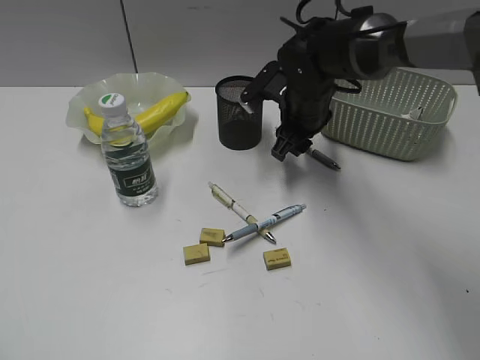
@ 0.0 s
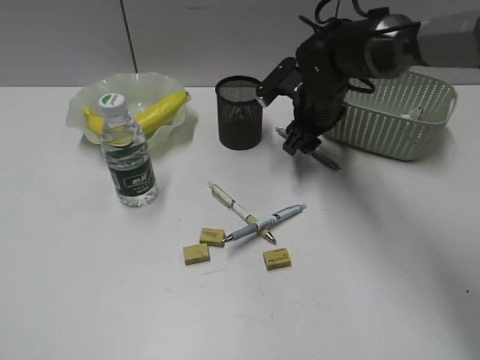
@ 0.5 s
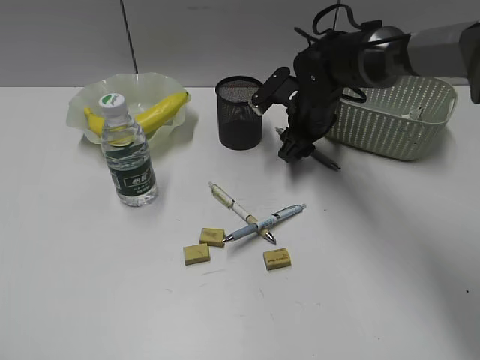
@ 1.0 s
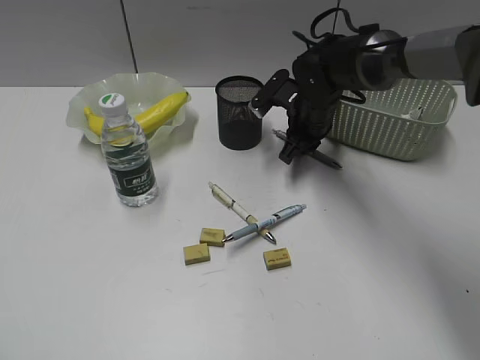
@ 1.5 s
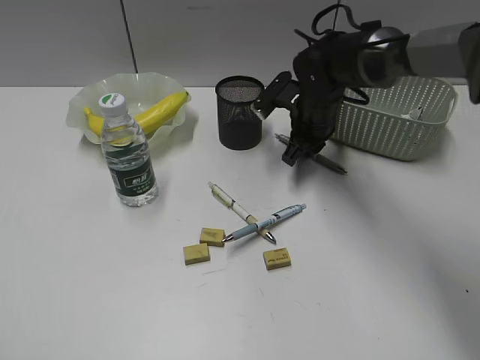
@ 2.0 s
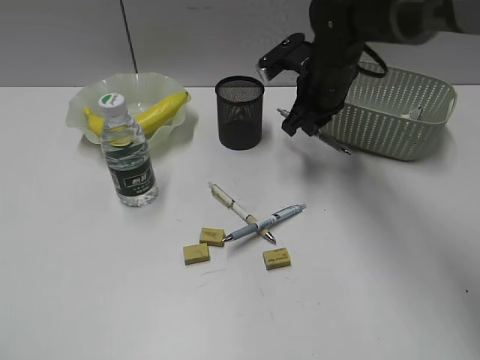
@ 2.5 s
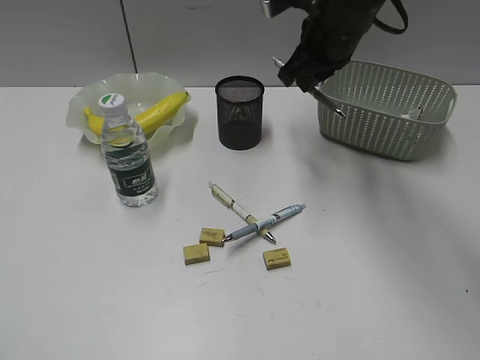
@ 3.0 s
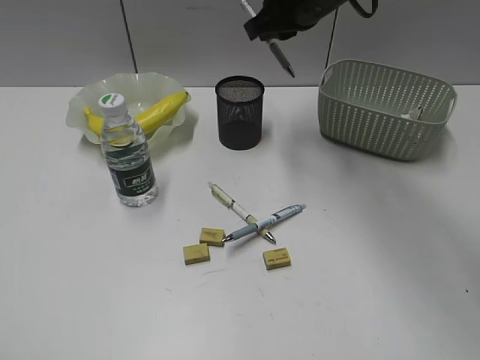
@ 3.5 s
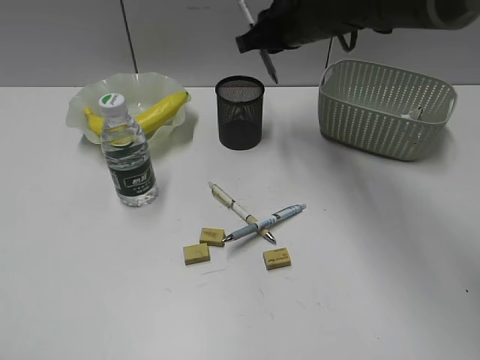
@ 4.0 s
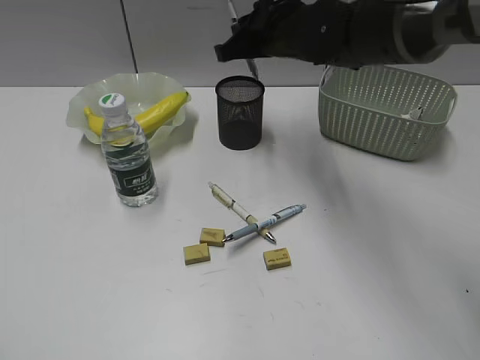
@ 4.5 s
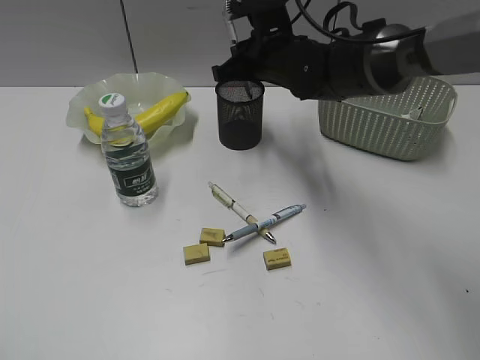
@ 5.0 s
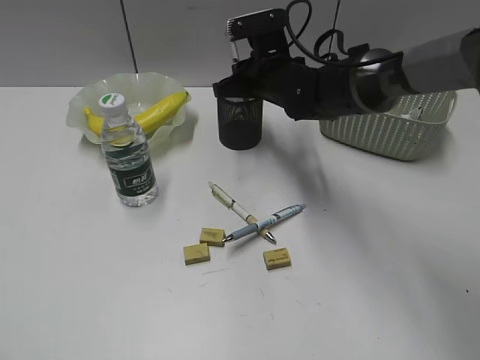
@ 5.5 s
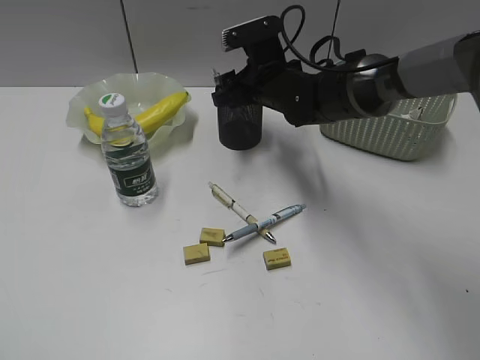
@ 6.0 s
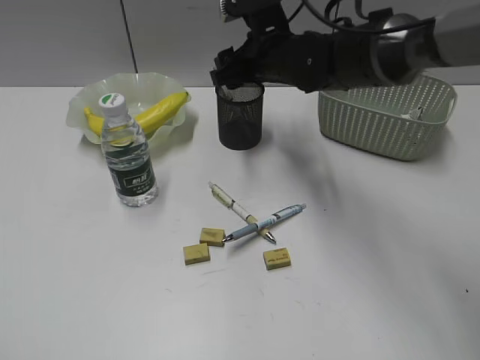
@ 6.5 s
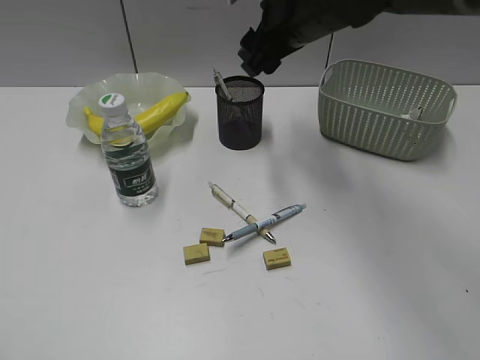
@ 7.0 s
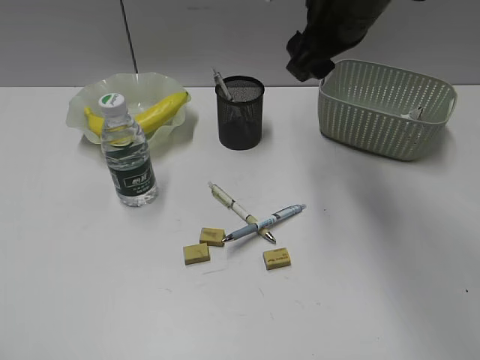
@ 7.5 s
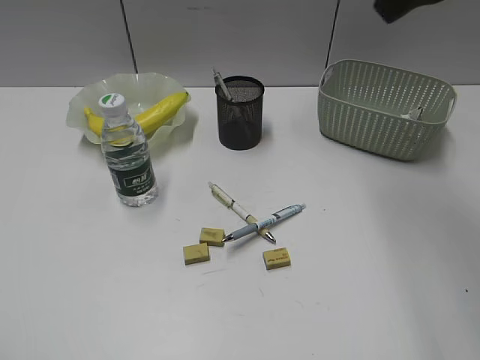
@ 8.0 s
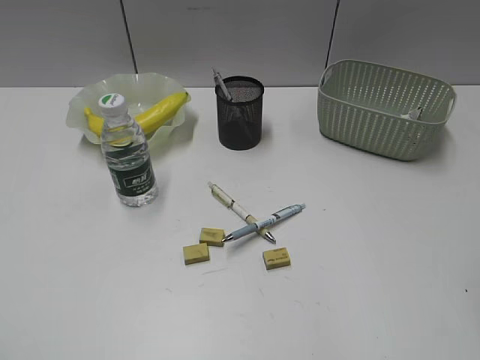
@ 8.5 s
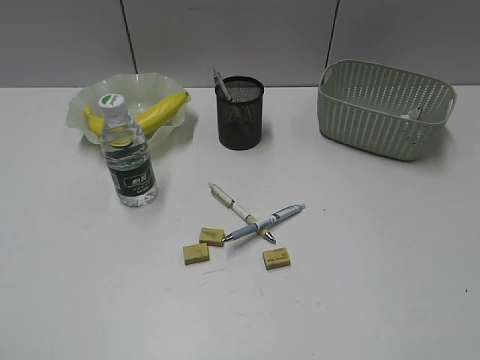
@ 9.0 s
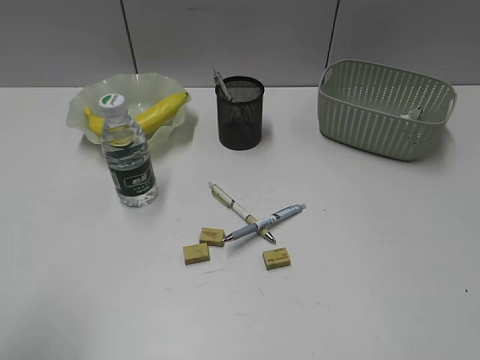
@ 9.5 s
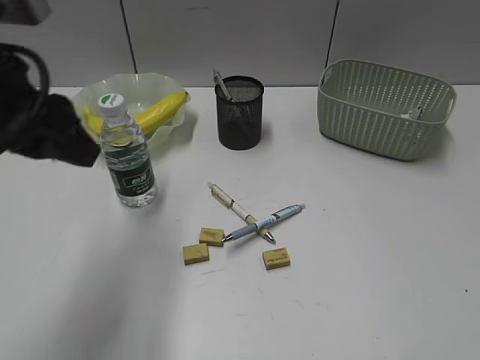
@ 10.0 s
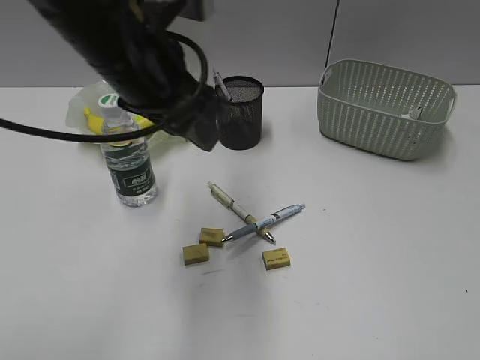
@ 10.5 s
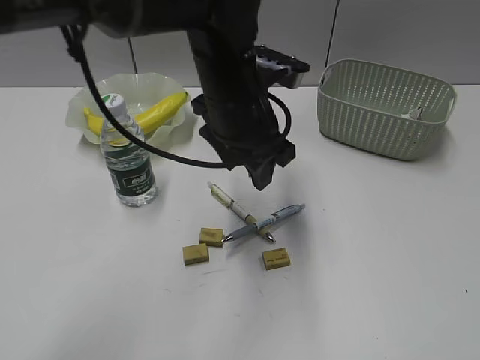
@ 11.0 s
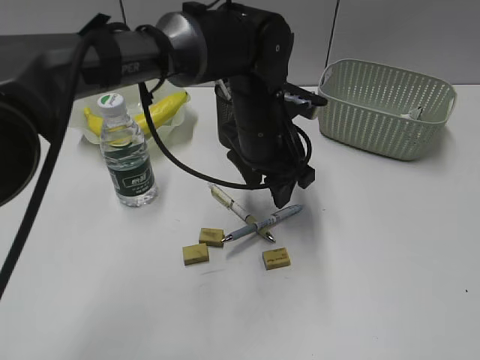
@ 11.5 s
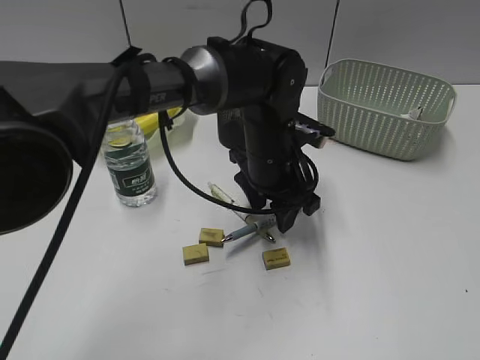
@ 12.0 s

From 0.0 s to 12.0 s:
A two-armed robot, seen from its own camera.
Step, from 2.0 s to 6.0 s: Place the gray pen in pen holder with right gripper.
From 0.0 s to 2.0 s: The right gripper closes its fingers.
From 2.0 s to 4.0 s: The right gripper moves upward, roughly 15 cm.
From 4.0 s to 6.0 s: The right gripper shifts approximately 10 cm downward, and opens.
From 6.0 s to 8.0 s: The right gripper is displaced upward and backward by about 30 cm.
From 8.0 s to 10.0 s: The right gripper heads backward, to the right and downward, covering about 35 cm. Meanwhile the left gripper goes about 25 cm forward and to the right.
From 10.0 s to 12.0 s: The left gripper travels to the right, downward and forward by roughly 30 cm.

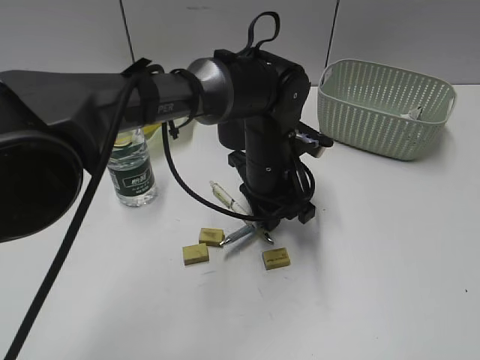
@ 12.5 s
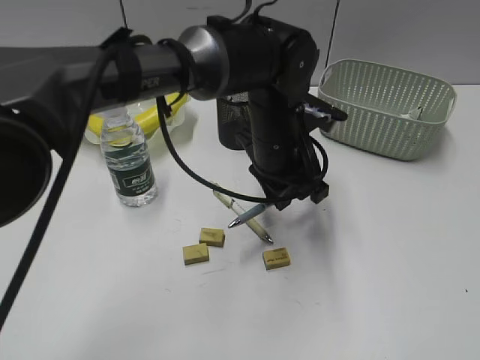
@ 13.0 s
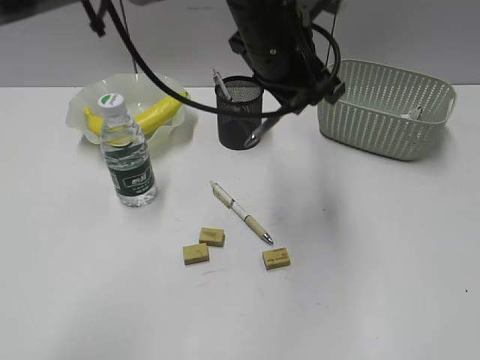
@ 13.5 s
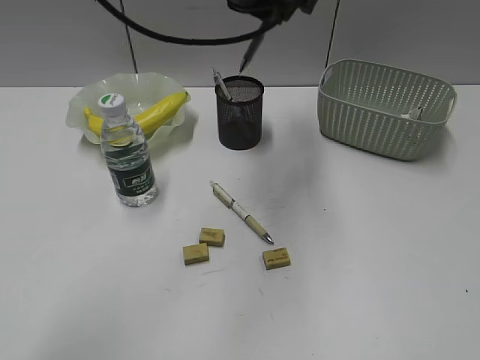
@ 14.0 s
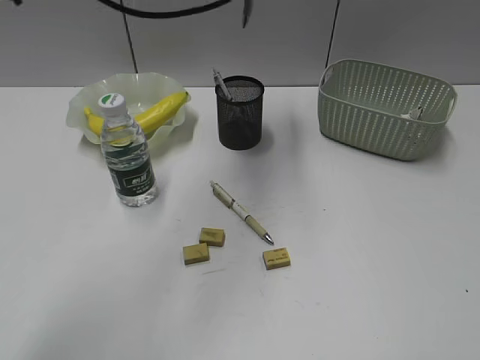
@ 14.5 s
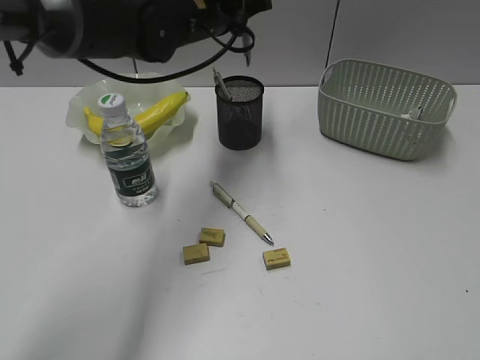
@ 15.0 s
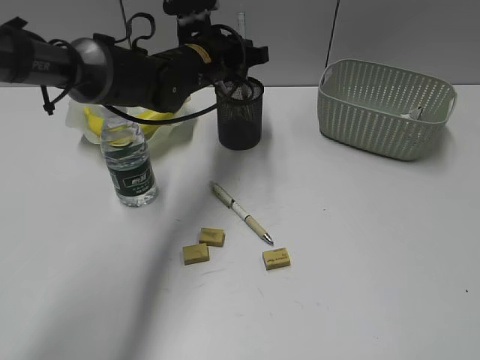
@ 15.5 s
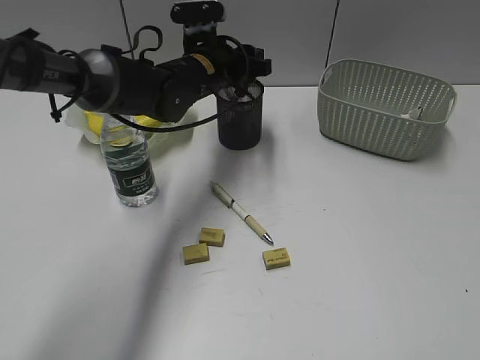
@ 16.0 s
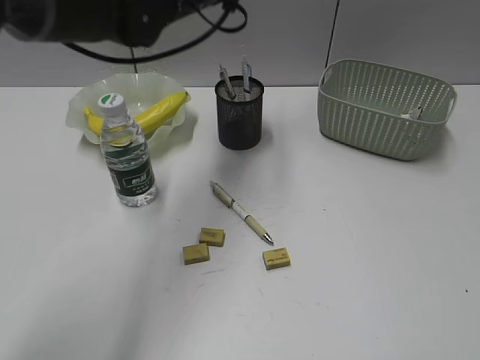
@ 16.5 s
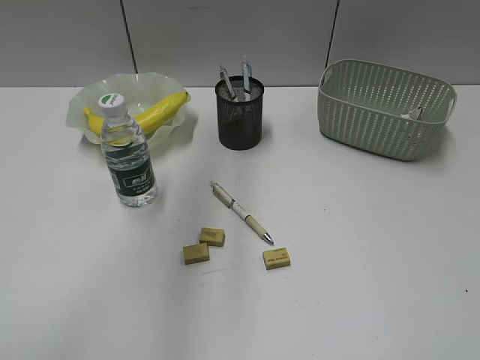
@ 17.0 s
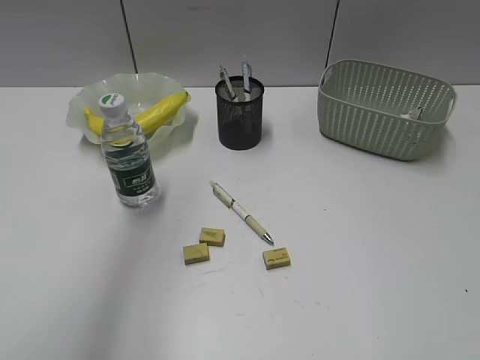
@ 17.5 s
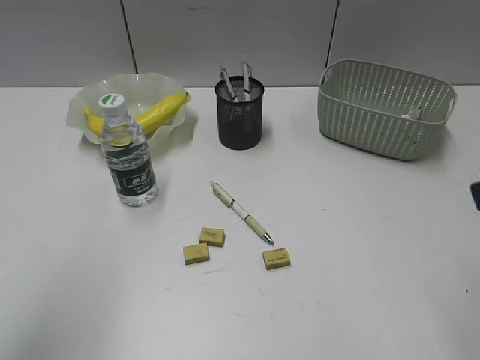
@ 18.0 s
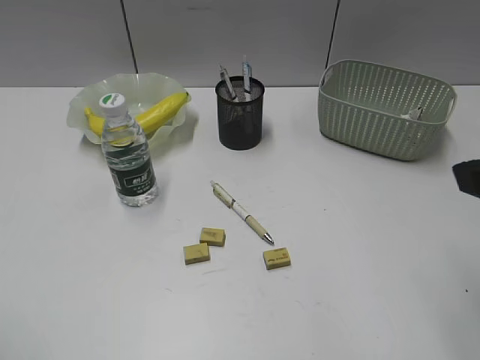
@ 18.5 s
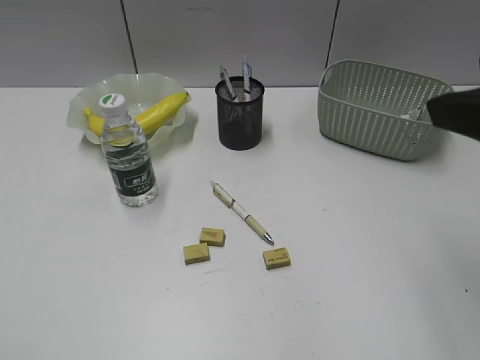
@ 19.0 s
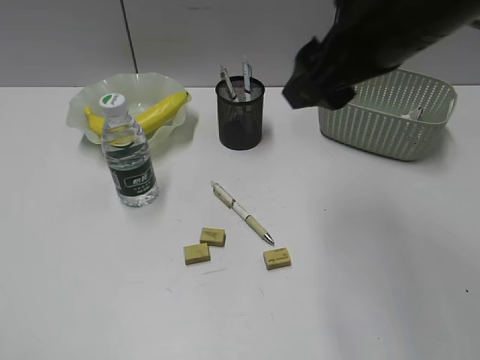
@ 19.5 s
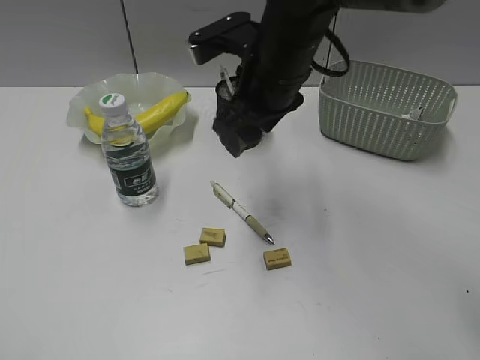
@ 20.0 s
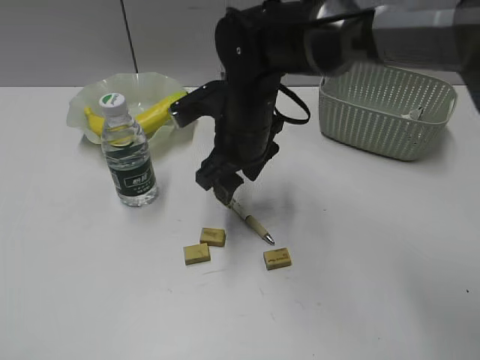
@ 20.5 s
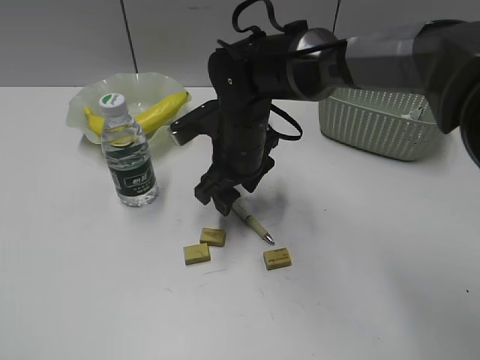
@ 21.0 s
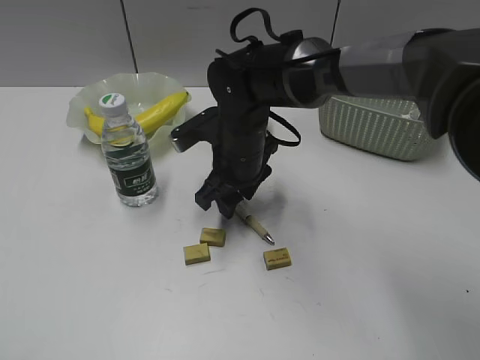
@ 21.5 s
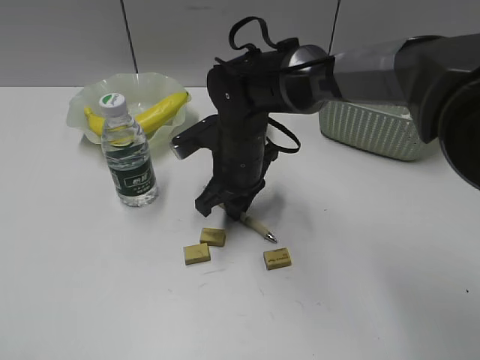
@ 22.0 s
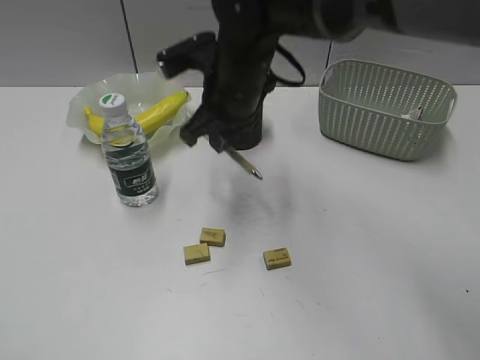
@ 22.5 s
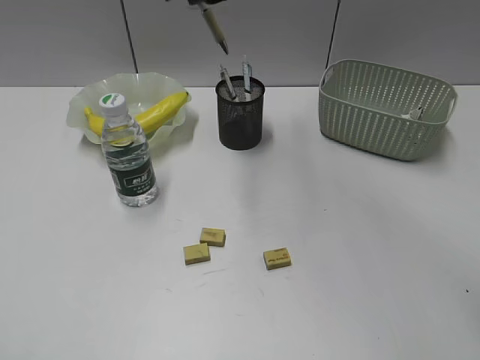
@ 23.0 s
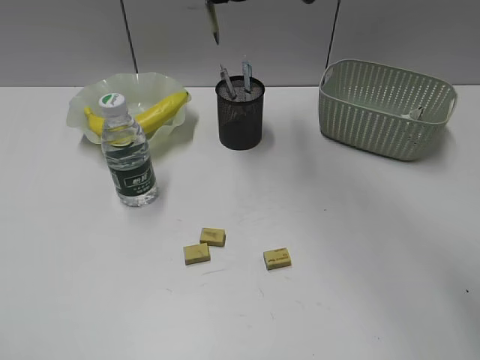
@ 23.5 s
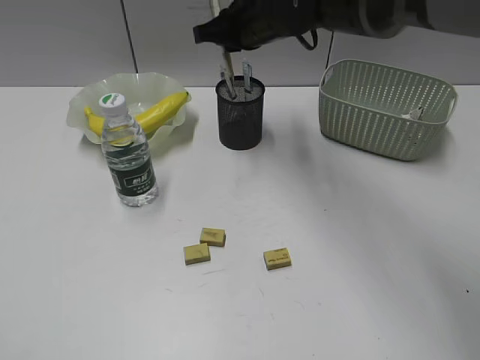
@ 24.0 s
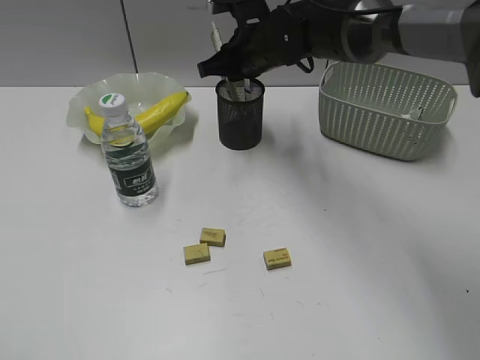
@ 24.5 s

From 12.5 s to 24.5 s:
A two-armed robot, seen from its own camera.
Step, from 13.0 s to 16.0 s: Place the blue pen in pen holder with left gripper.
Step, from 16.5 s to 22.0 s: Grasp the yellow pen with right gripper.
From 12.5 s to 14.5 s: The left gripper goes about 25 cm upward and forward.
From 14.5 s to 16.5 s: The left gripper reaches roughly 15 cm downward, then returns, and opens its fingers.
From 16.5 s to 18.5 s: The left gripper shifts roughly 50 cm backward and to the left. Meanwhile the right gripper shifts about 15 cm forward and to the left.
From 18.5 s to 20.5 s: The right gripper shifts some 35 cm forward, to the left and downward.
From 20.5 s to 22.5 s: The right gripper closes up.
From 22.5 s to 24.5 s: The right gripper moves forward, roughly 10 cm, and moves roughly 15 cm upward and comes back.

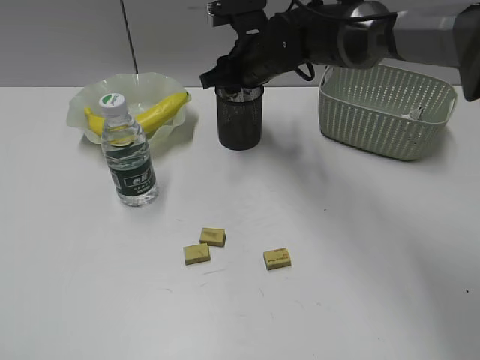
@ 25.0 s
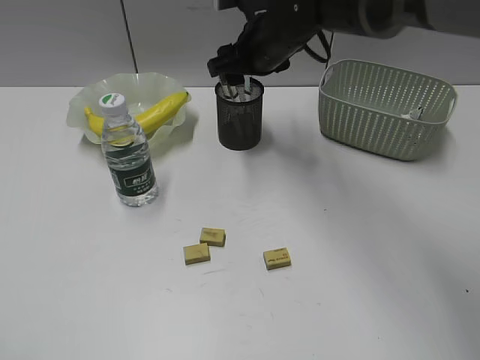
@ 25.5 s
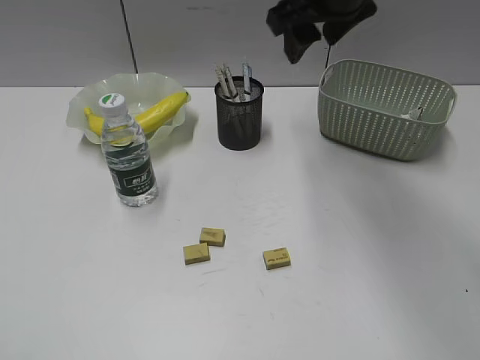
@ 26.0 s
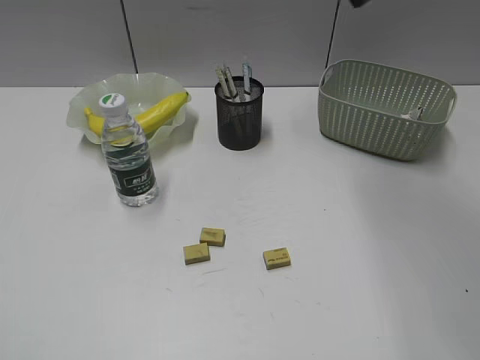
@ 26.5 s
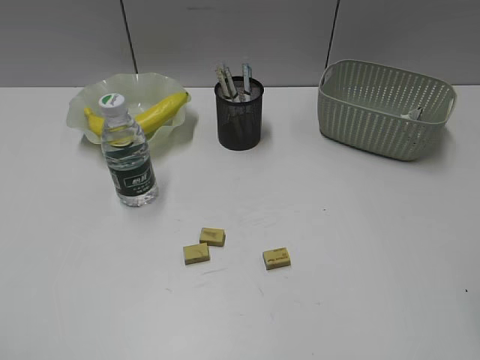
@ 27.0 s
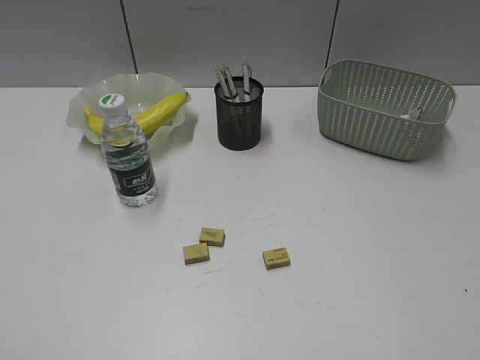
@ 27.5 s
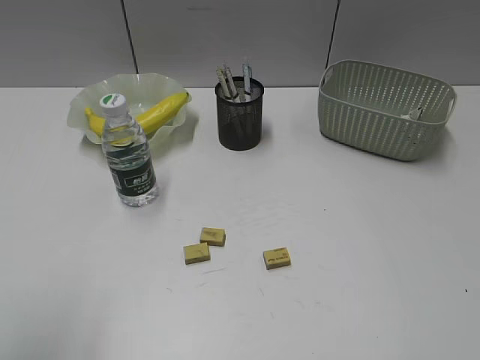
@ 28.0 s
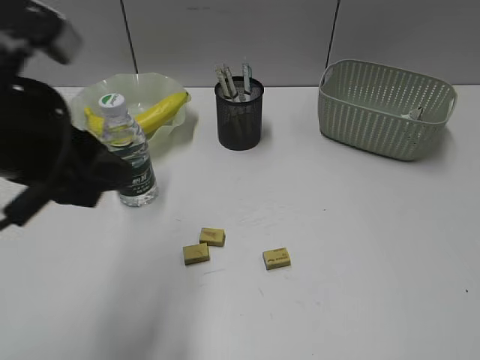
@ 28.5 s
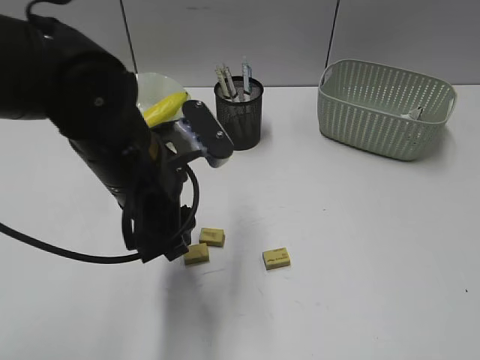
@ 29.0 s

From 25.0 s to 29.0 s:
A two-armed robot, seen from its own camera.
From 25.0 s to 27.0 s: The right gripper moves backward, to the right and upward, approximately 40 cm.
From 27.0 s to 29.0 s: The right gripper is displaced backward, downward and to the right by roughly 15 cm. The left gripper is displaced forward and to the right by roughly 35 cm.
